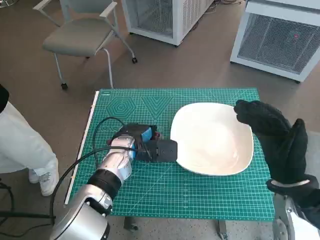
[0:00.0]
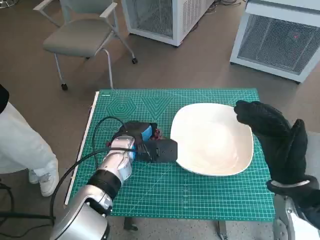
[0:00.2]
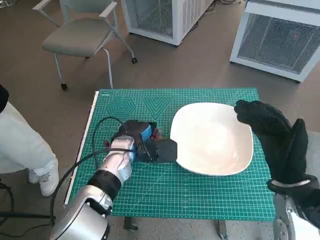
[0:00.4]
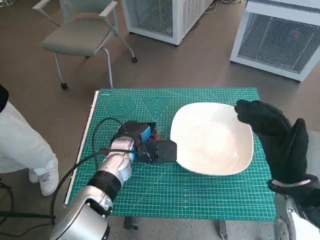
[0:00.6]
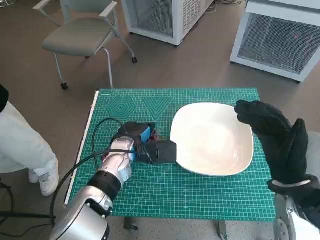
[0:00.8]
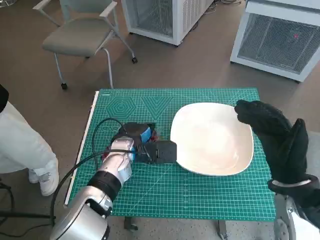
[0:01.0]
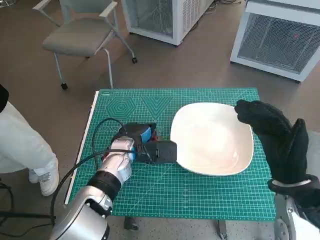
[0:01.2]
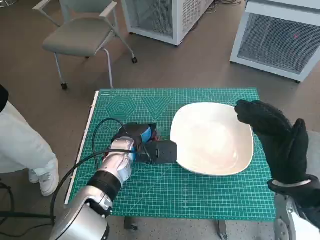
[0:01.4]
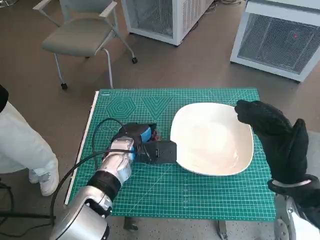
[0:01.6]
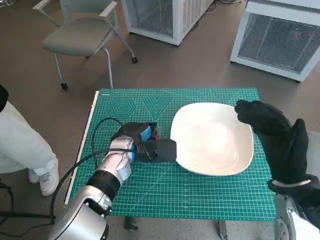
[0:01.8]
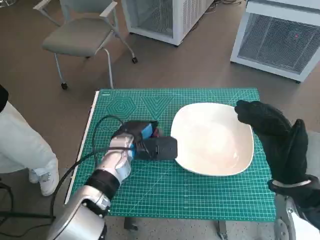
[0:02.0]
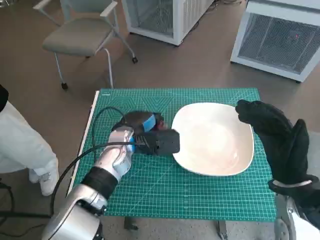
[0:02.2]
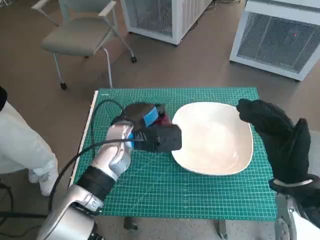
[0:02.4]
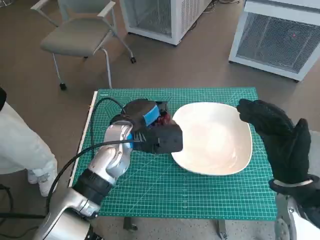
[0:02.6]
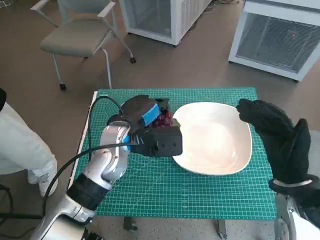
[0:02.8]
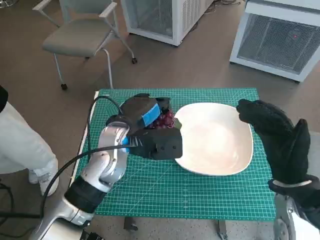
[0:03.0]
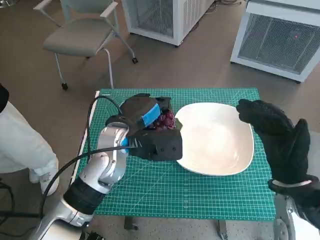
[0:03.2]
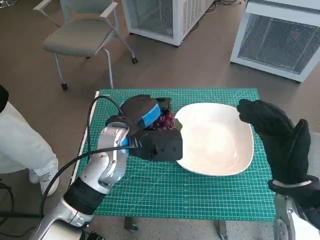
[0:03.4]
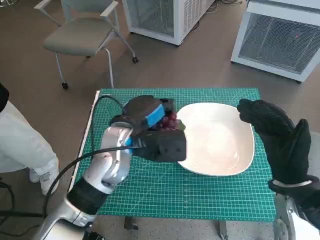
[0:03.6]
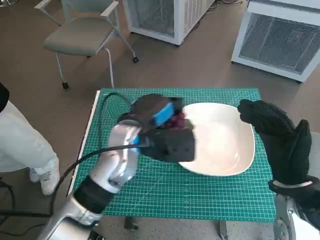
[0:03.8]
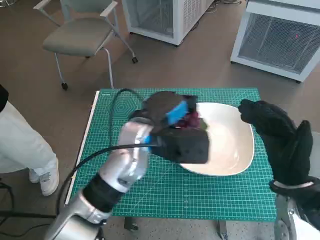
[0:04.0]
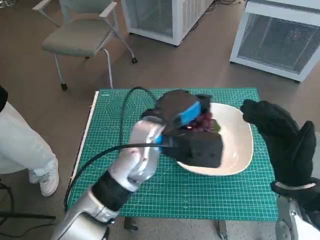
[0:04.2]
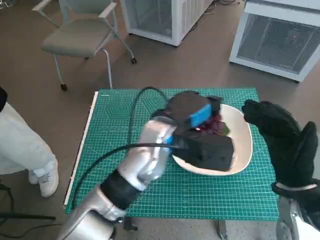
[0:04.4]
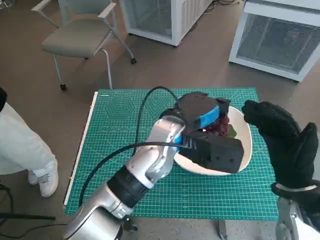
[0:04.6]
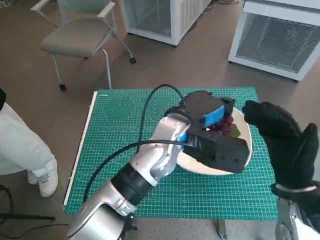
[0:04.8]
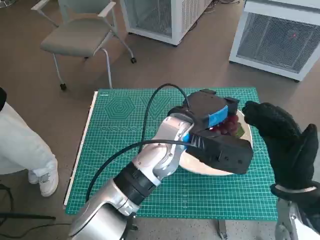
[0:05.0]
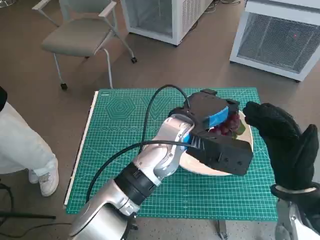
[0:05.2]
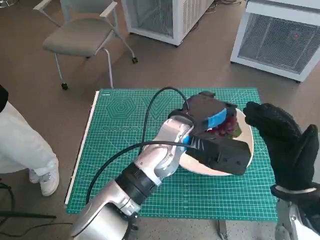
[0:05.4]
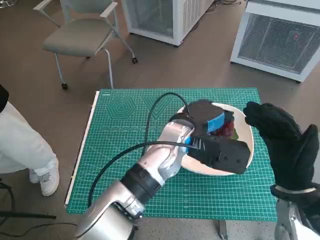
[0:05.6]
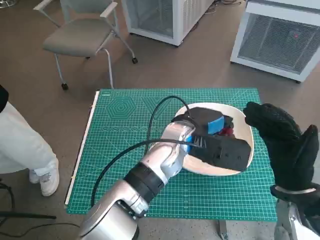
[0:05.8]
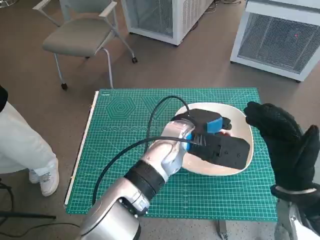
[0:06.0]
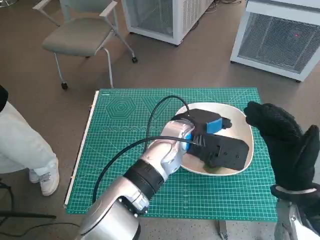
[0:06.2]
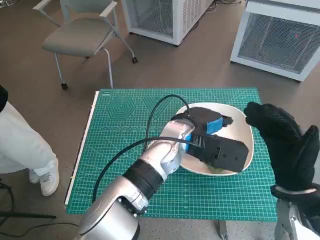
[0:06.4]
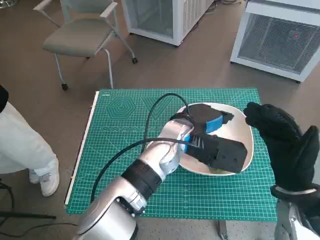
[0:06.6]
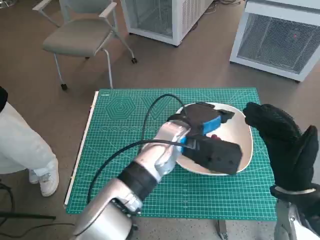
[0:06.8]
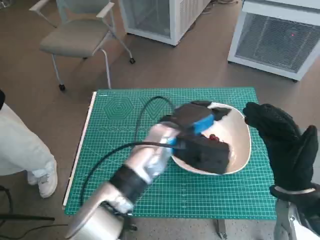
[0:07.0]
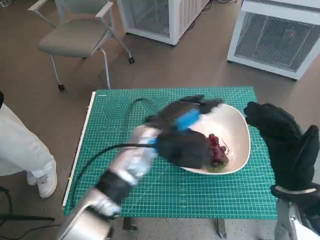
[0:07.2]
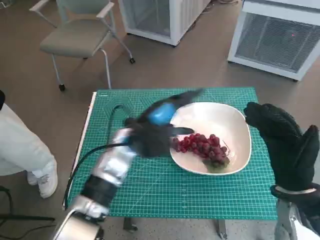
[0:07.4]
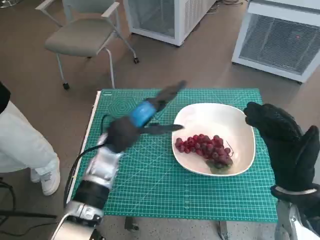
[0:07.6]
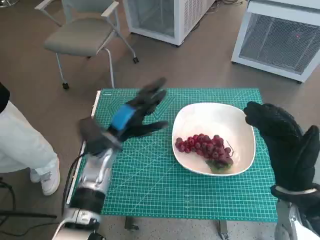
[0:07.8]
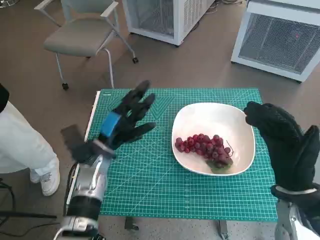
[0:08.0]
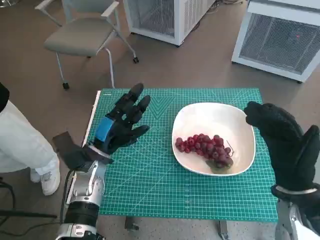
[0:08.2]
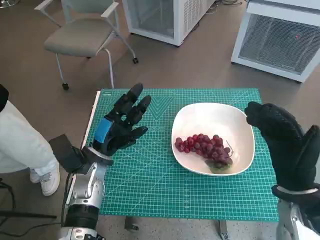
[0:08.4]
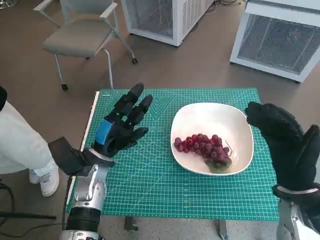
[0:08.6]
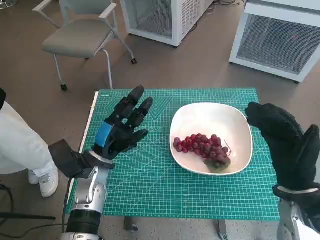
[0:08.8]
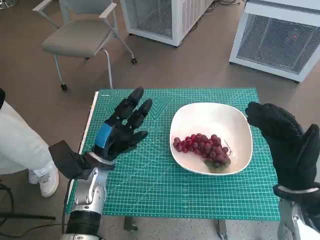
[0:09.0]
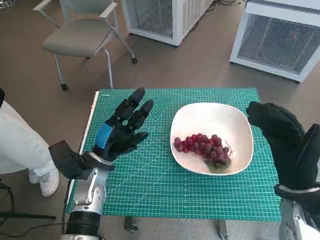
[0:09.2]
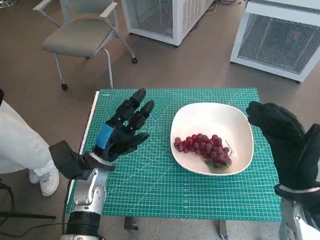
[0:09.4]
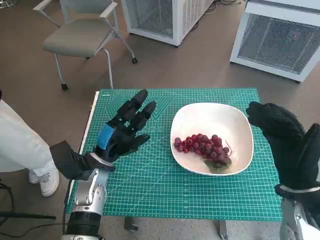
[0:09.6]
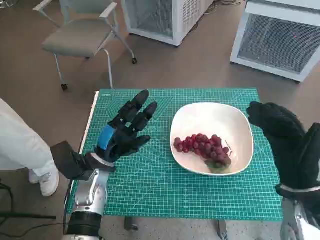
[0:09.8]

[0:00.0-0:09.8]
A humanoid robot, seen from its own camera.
Task of the whole recording: Pick up the grapes and put them on the plate.
Step, 0:00.0 to 0:06.8: Place the grapes in the plate with left hand.
0:00.0 to 0:01.4: The hands make only small movements.
0:01.4 to 0:02.8: The left hand heads upward, covering roughly 10 cm.
0:02.8 to 0:04.2: The left hand moves to the right, approximately 5 cm.
0:04.2 to 0:05.6: The left hand shifts about 5 cm to the right.
0:05.6 to 0:07.0: The hands stay close to where they were, moving slightly.
0:07.0 to 0:08.4: The left hand is displaced to the left and downward by roughly 20 cm.
0:08.4 to 0:09.8: The two hands keep their place.

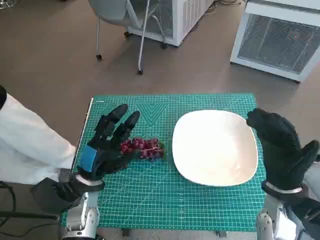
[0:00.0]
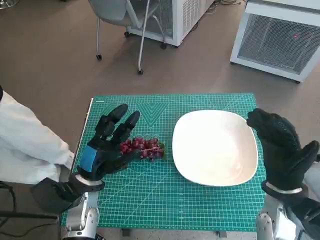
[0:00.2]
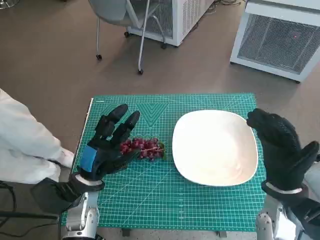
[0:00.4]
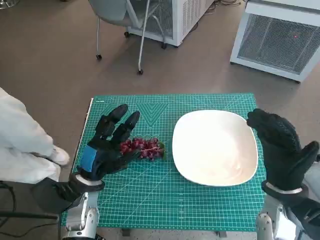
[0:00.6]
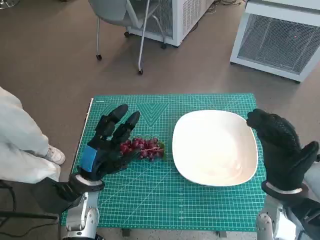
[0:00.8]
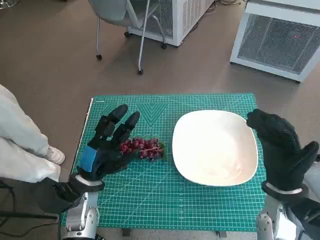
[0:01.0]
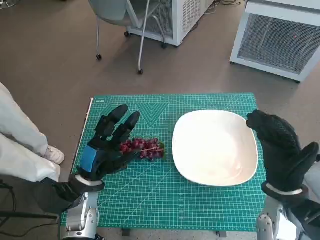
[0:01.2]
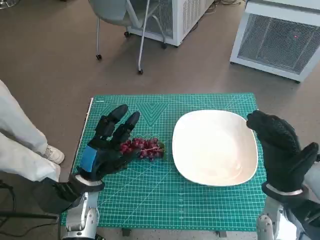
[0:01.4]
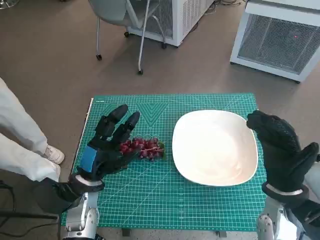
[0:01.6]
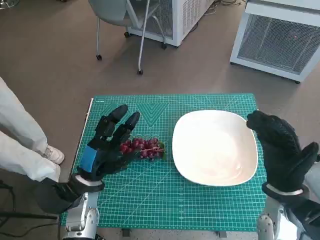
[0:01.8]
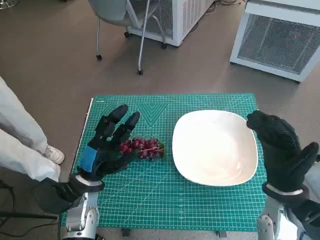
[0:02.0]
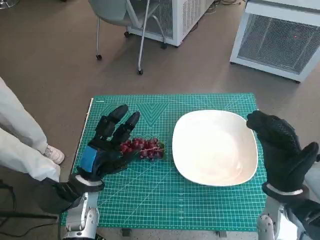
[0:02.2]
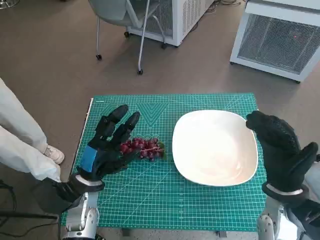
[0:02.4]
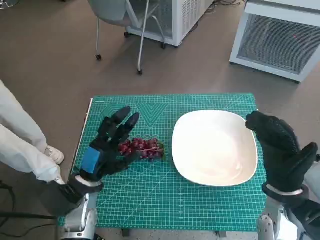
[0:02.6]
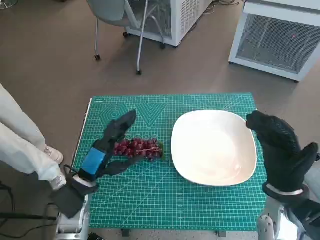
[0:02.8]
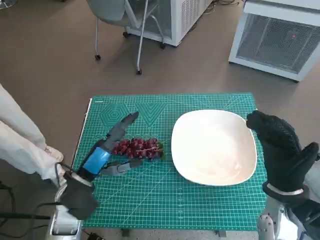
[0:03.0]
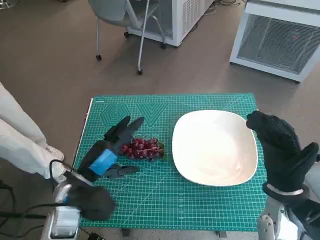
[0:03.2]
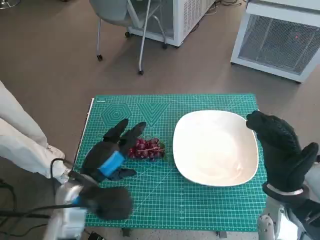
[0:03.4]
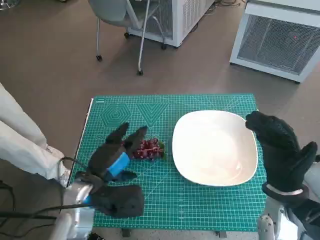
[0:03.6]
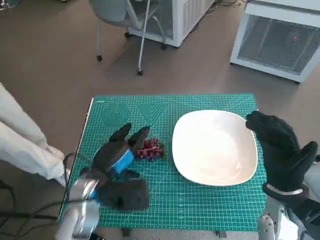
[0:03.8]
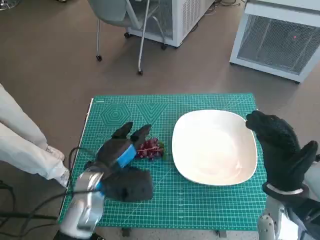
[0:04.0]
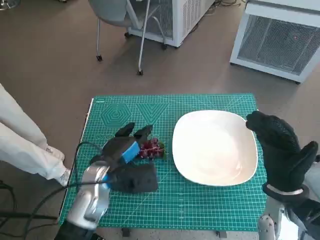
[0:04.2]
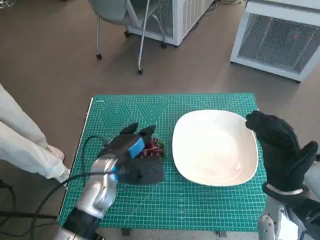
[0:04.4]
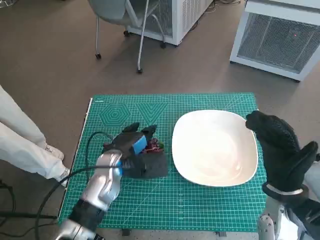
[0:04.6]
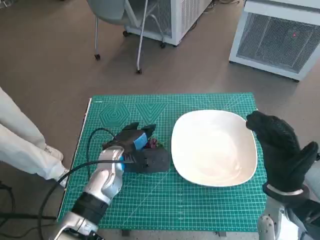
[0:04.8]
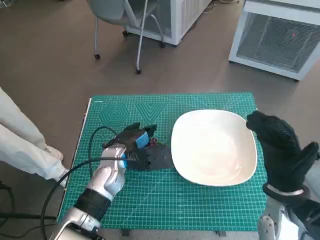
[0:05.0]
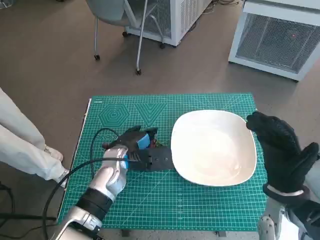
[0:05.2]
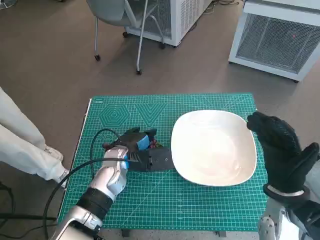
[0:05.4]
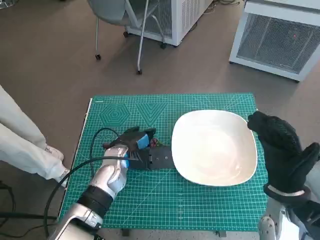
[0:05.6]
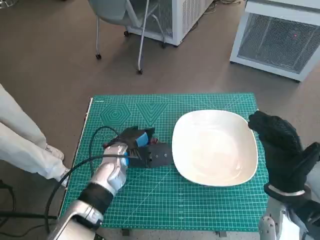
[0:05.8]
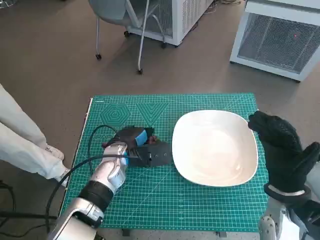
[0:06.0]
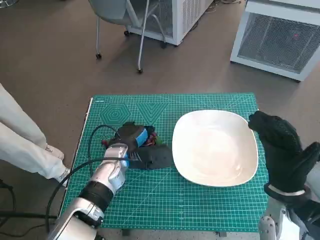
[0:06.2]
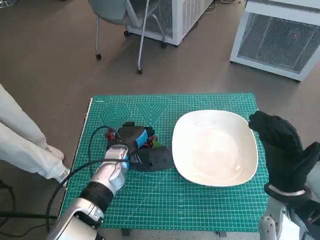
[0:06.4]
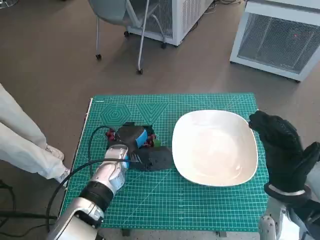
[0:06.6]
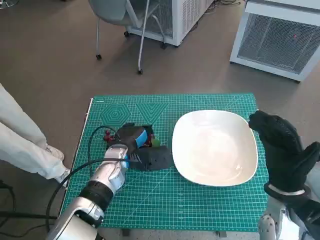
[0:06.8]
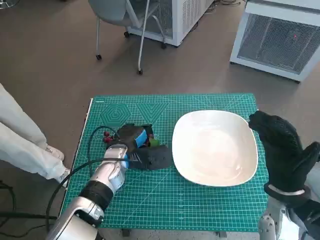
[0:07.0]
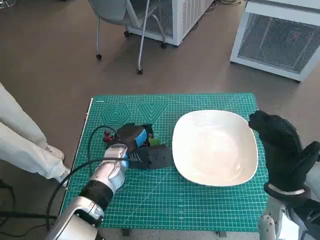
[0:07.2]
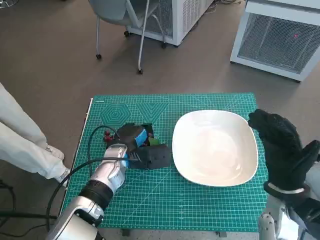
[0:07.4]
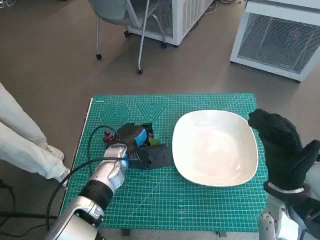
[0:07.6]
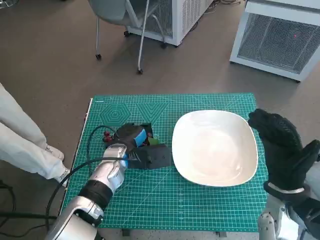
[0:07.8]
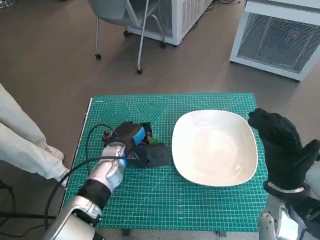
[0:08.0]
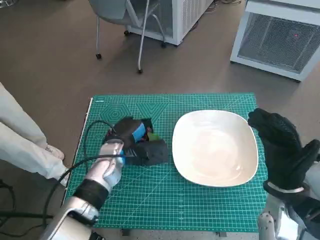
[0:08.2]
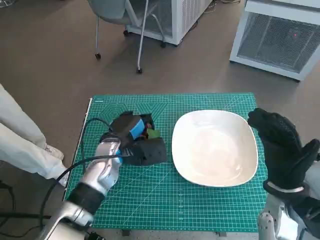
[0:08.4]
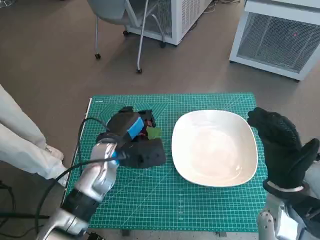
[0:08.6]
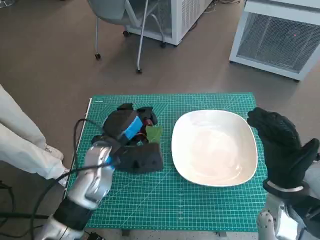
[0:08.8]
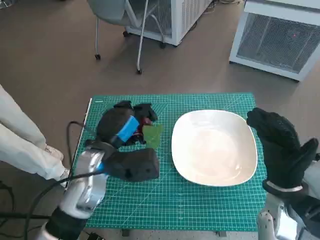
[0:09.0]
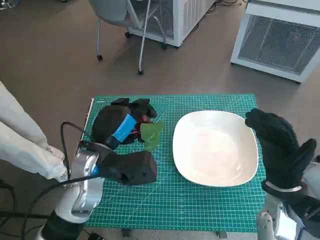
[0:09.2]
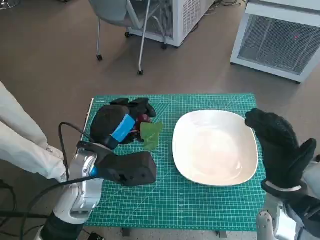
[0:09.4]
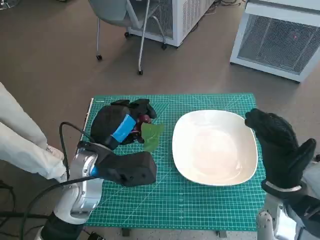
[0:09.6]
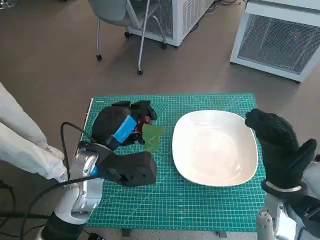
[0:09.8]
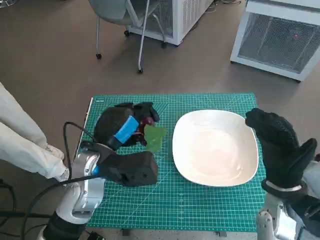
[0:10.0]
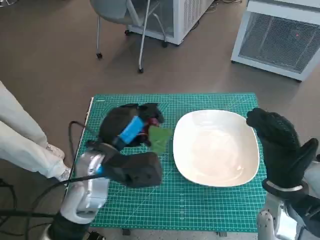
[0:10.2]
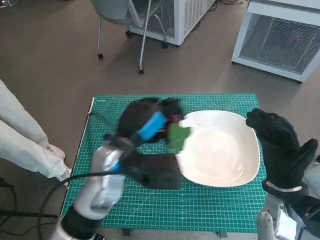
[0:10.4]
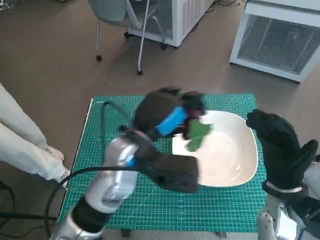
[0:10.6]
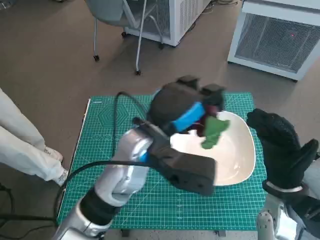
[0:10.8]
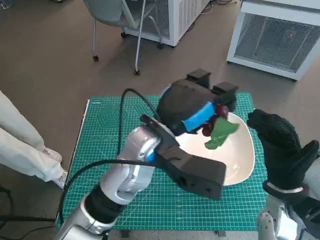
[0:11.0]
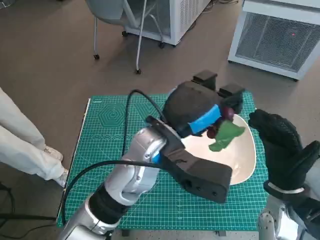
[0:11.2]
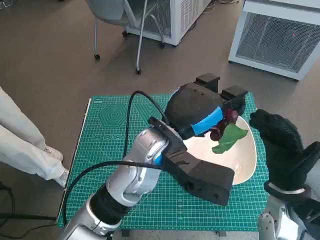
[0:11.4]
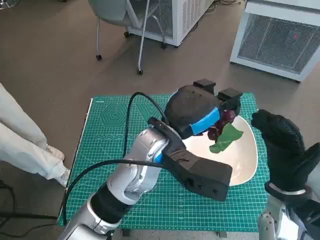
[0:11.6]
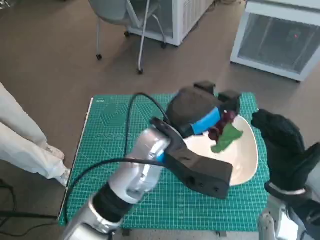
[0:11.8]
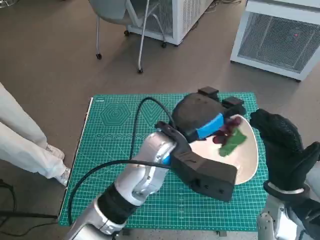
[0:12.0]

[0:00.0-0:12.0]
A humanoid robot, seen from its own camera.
Task of the whole recording: Pick up the grapes and put them on the plate.
Step, 0:00.0 to 0:07.8: Grasp the grapes with left hand.
0:03.0 to 0:04.4: The left hand is displaced to the right by approximately 5 cm.
0:04.4 to 0:06.0: The left hand moves approximately 5 cm.
0:06.0 to 0:07.6: There are only small adjustments of the hands.
0:07.6 to 0:09.0: The left hand moves upward, approximately 5 cm.
0:09.0 to 0:10.4: The hands move only a little.
0:10.4 to 0:12.0: The left hand goes some 10 cm to the right.
